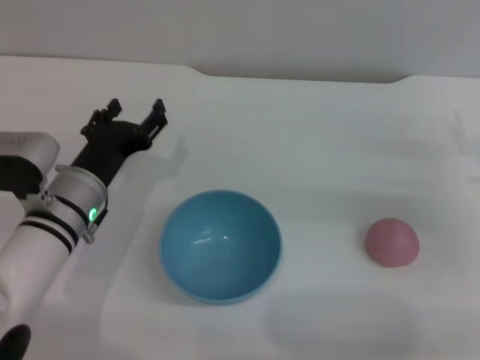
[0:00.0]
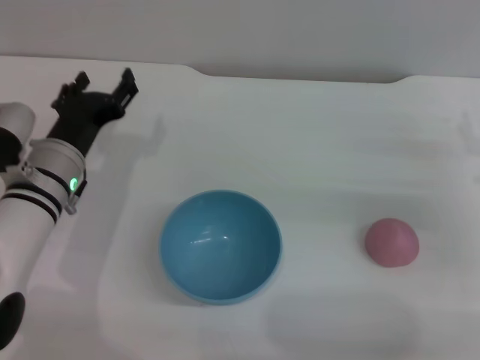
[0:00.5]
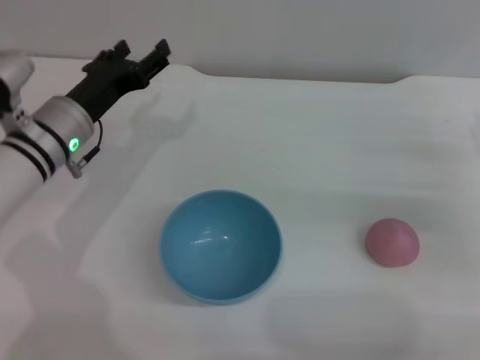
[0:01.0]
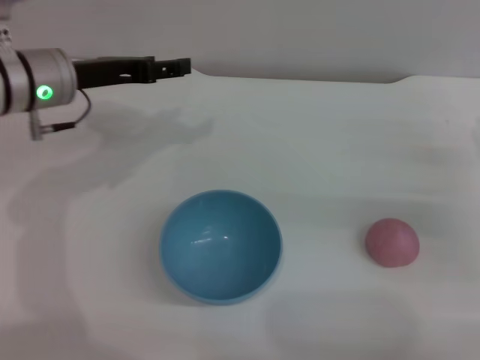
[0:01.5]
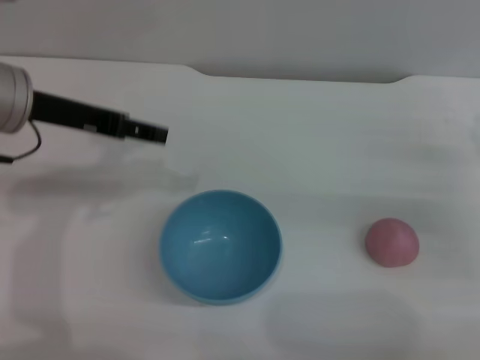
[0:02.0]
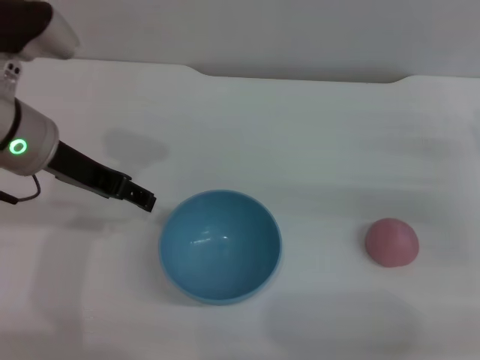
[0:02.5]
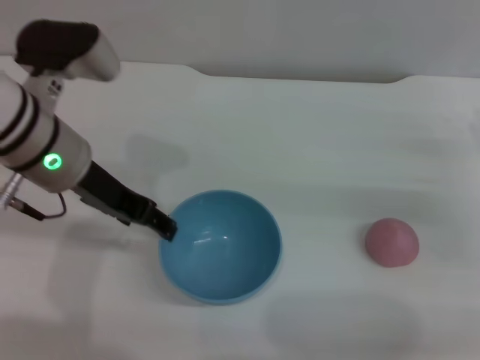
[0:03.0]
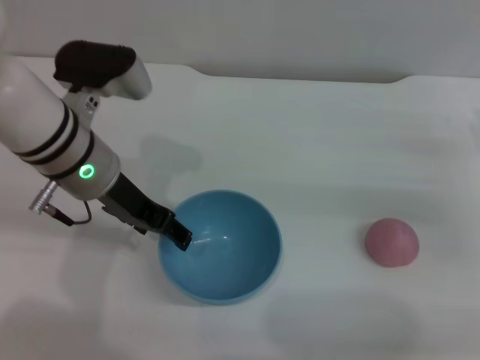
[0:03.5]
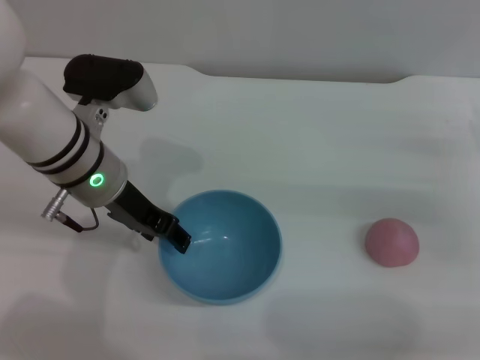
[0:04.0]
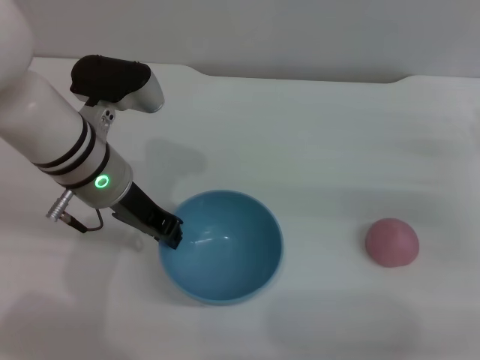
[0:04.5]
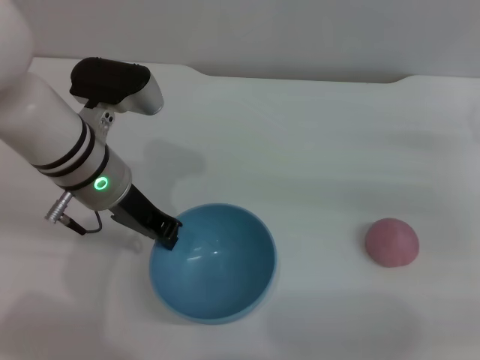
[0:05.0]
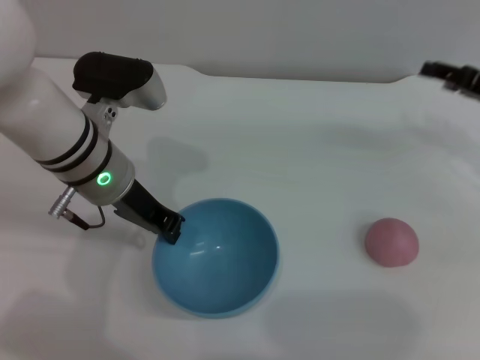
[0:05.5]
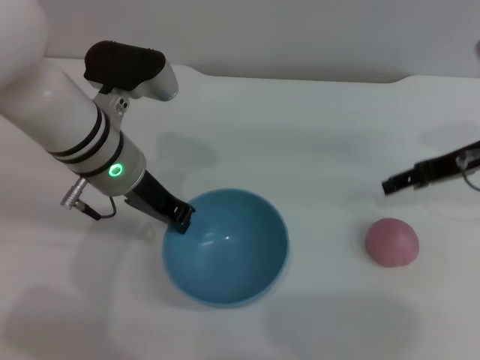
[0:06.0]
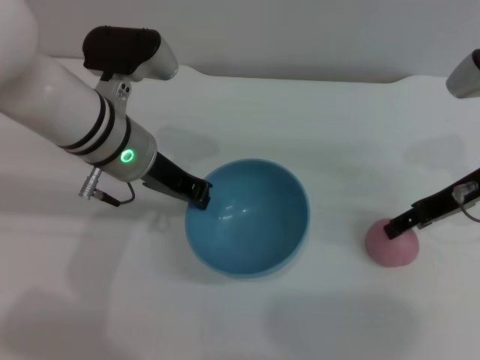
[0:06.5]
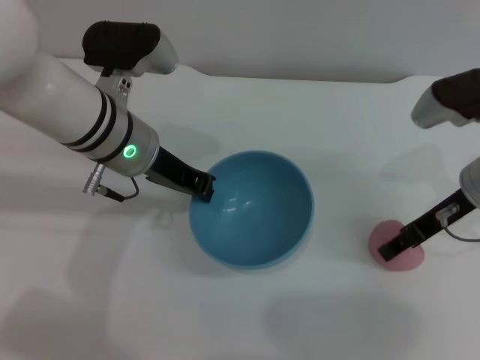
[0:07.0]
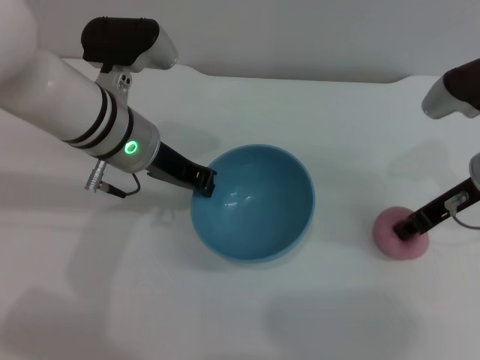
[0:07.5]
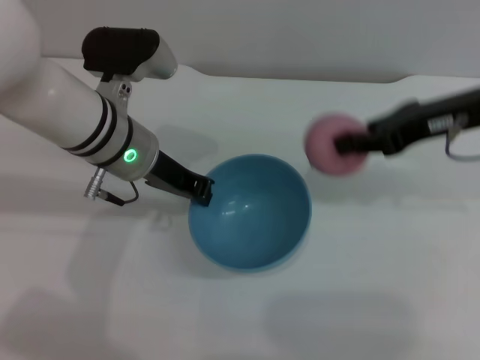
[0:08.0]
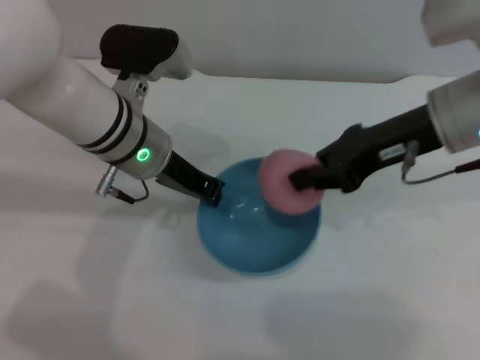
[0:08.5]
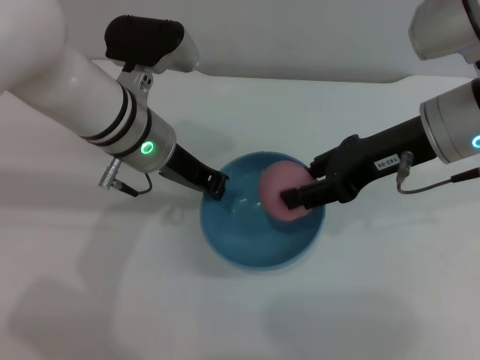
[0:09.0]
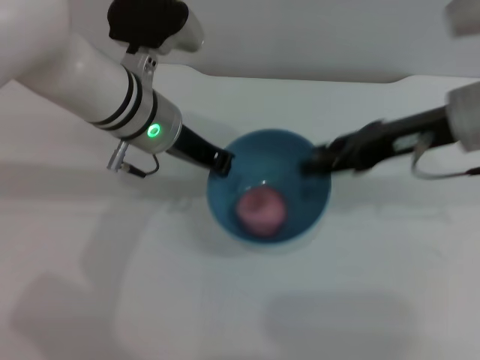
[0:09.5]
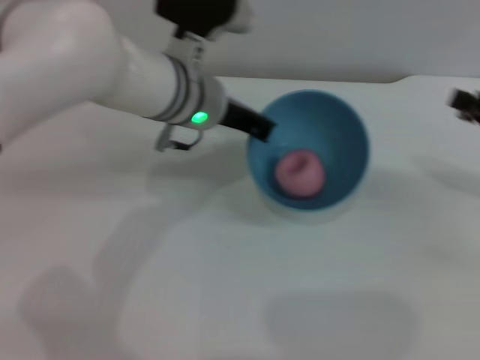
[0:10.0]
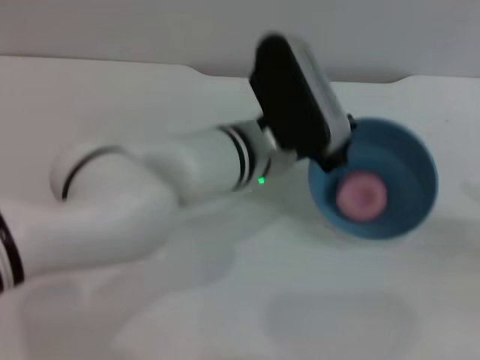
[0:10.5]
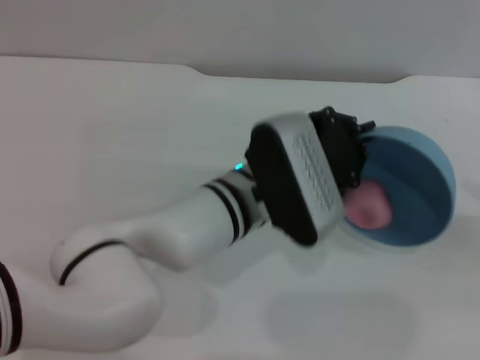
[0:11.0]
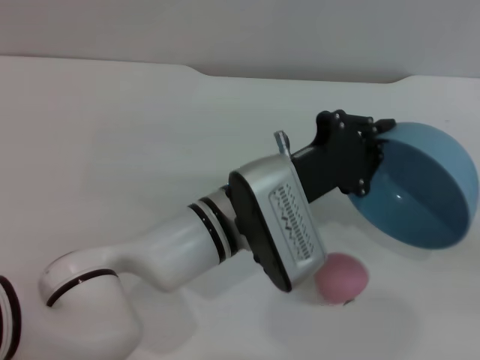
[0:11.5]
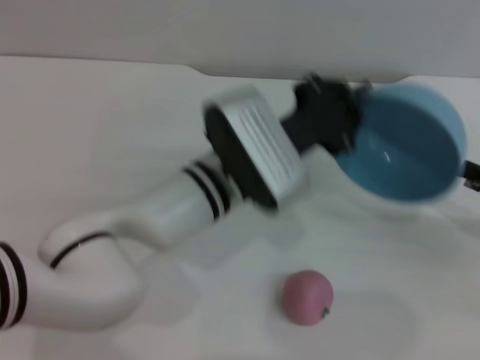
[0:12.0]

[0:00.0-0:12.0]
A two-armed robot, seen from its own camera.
Task of the whole recording: put the peach into the blue bowl and pour it out repeatedly.
Step, 0:00.0 to 0:06.0: Pick up the bowl with the left gripper.
Step, 0:06.5 to 0:07.5: Pick up the peach with the right gripper.
Step, 0:08.0 to 0:09.5: Place the peach into the bowl.
Step, 0:10.0 to 0:11.5: Pour the peach out of bowl.
0:00.0 to 0:02.0: The left gripper travels upward by about 15 cm.
0:02.0 to 0:04.0: The left gripper is displaced downward and to the right by approximately 10 cm.
0:04.0 to 0:06.0: The right gripper heads upward, to the left and forward, covering about 10 cm, while the left gripper closes up.
0:06.0 to 0:08.0: The right gripper goes approximately 5 cm upward, and closes.
0:08.0 to 0:10.0: The left gripper goes approximately 5 cm to the right. The right gripper heads to the right, downward and backward, covering roughly 15 cm, and opens up.
0:10.0 to 0:12.0: The right gripper moves downward and backward, about 10 cm, while the left gripper travels backward and downward by roughly 10 cm.

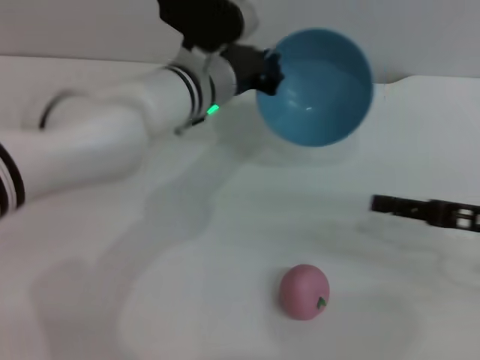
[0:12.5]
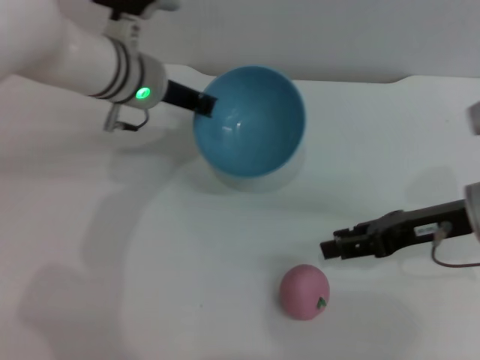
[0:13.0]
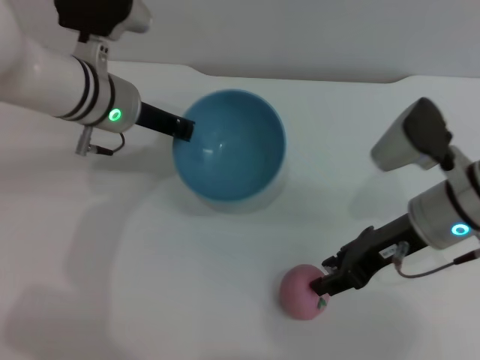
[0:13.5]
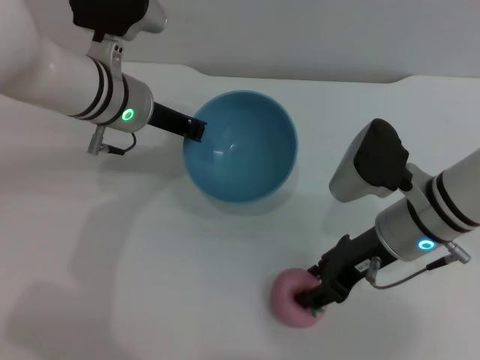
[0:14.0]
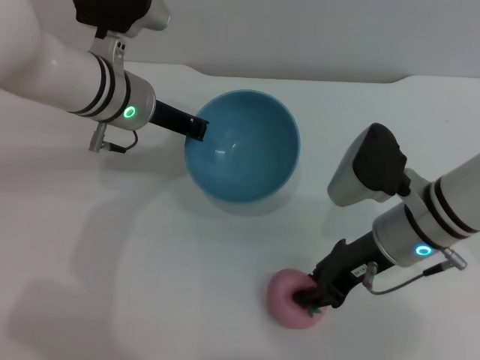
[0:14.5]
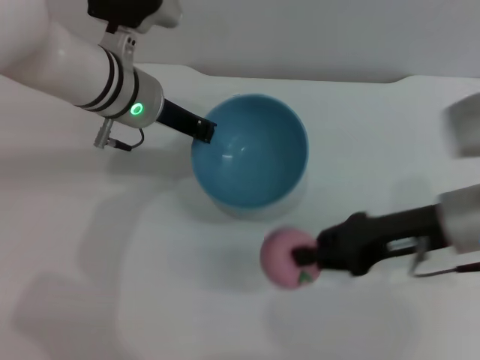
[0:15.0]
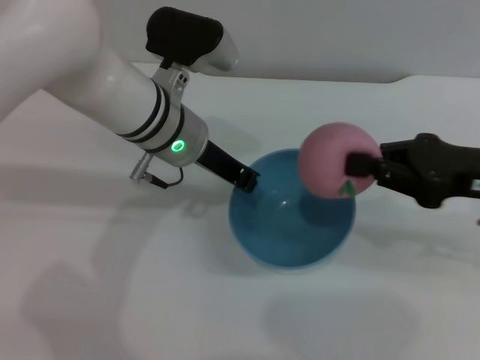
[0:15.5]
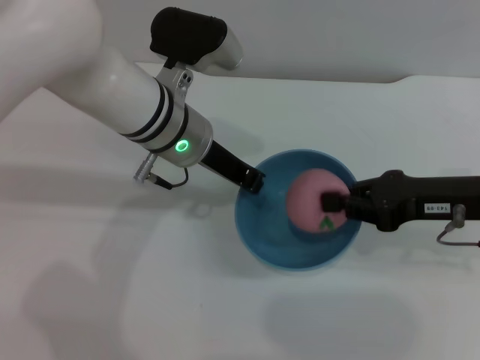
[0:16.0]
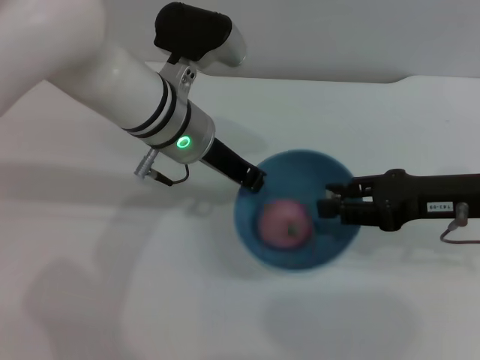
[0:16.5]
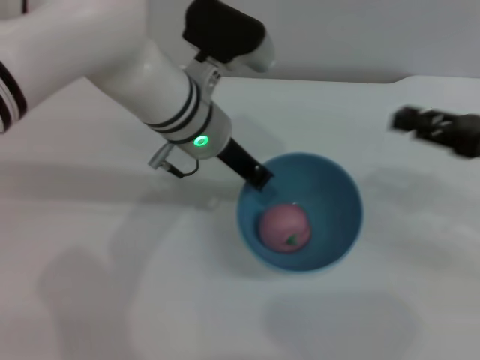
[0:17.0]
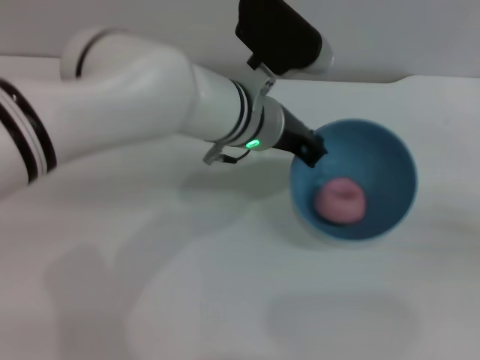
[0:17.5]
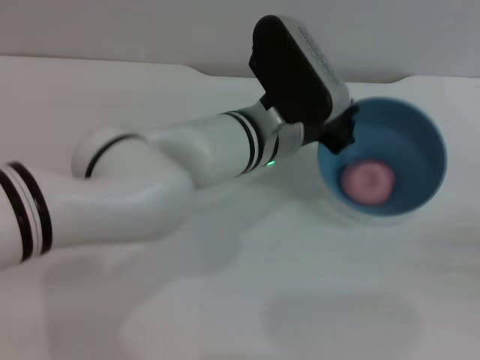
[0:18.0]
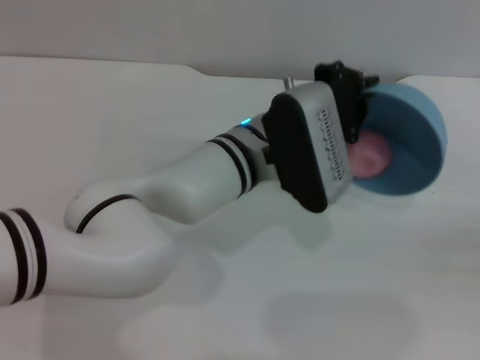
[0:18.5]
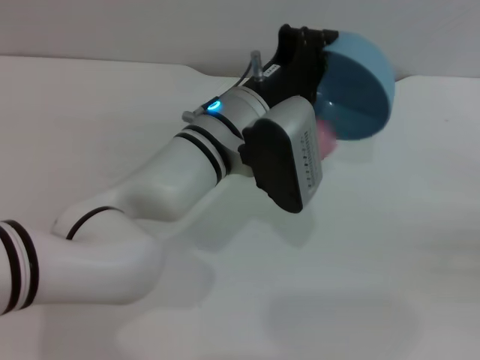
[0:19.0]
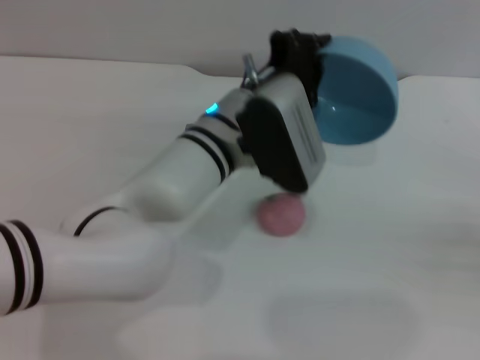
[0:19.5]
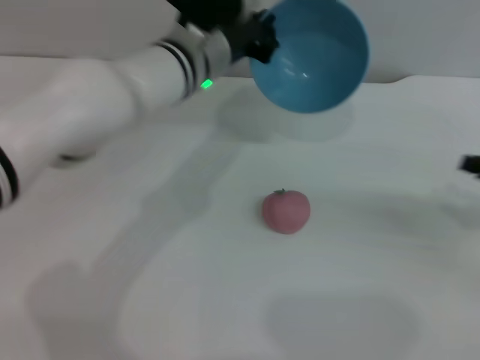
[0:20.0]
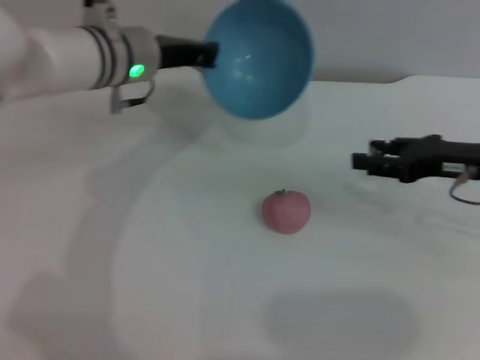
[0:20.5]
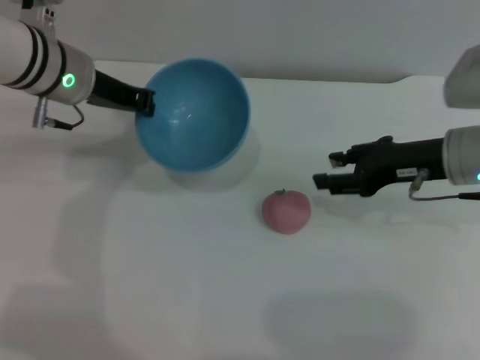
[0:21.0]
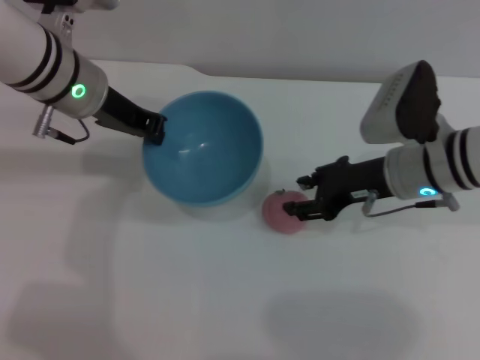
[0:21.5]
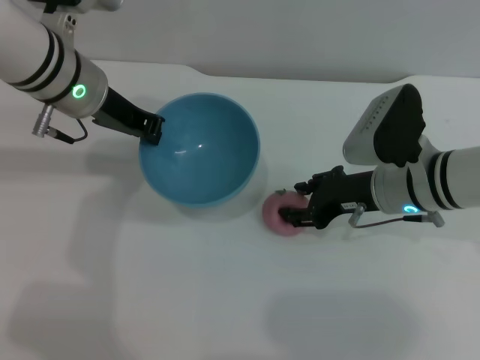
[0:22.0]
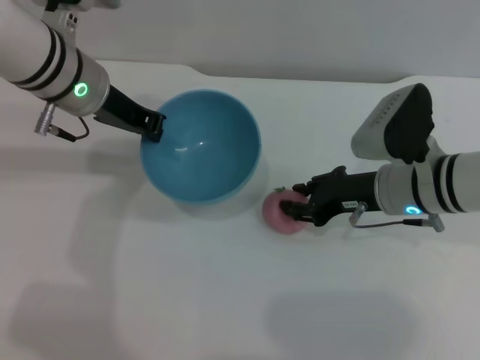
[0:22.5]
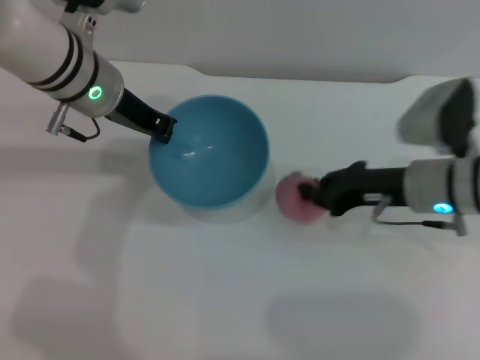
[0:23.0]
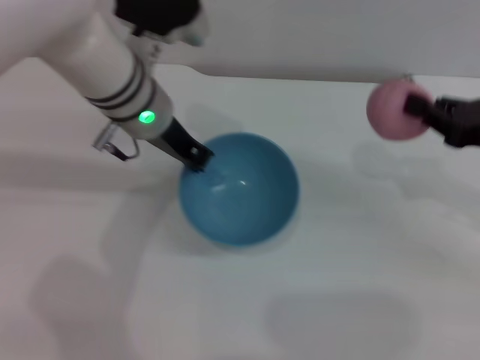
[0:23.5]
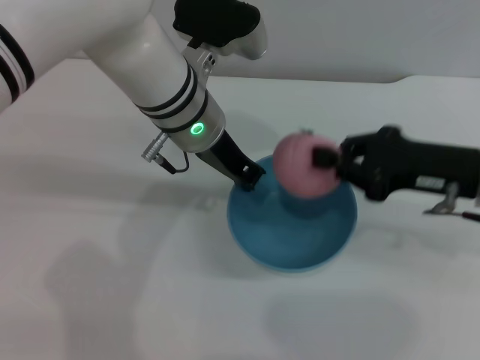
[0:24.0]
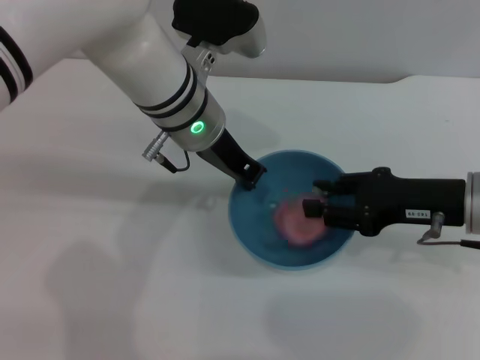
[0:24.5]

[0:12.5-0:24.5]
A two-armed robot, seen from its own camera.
Task of the whole recording: put the peach into the blue bowl and pour it out repeatedly.
Step, 0:12.5 to 0:15.0: Pick up the peach with the right gripper.
Step, 0:15.5 to 0:16.5: Place the peach into the bowl.
Step, 0:17.0 to 0:19.5: Pour the peach out of bowl.
Step, 0:20.0 to 0:23.0: Pick up the peach with the right gripper.
0:12.5 to 0:14.5: The right gripper shifts approximately 15 cm to the left. The left gripper shifts about 10 cm to the left.
0:14.5 to 0:16.5: The right gripper goes roughly 10 cm to the right, and closes and opens again, while the left gripper moves to the right, about 5 cm.
0:16.5 to 0:18.5: The left gripper travels to the right by roughly 10 cm. Meanwhile the right gripper goes about 20 cm to the right and backward.
0:18.5 to 0:20.5: Both grippers travel together to the left and forward, some 20 cm.
0:20.5 to 0:22.5: The right gripper travels to the left by approximately 10 cm. Meanwhile the left gripper shifts by about 5 cm.
0:22.5 to 0:24.5: The right gripper heads to the right, covering about 5 cm, and closes, then opens again, while the left gripper shifts approximately 10 cm to the right.

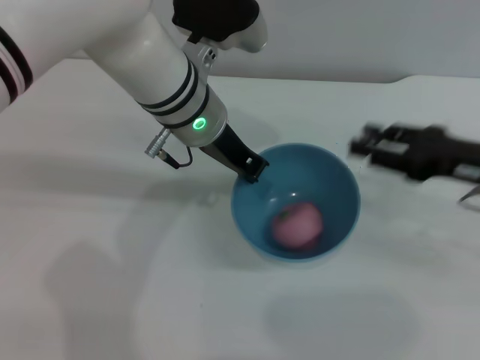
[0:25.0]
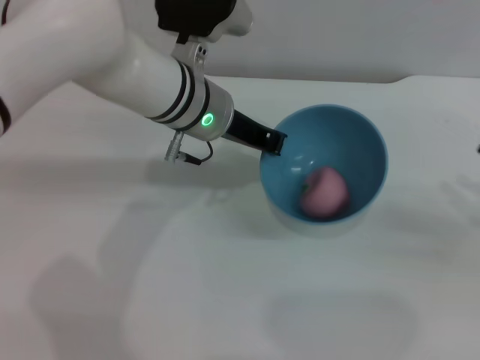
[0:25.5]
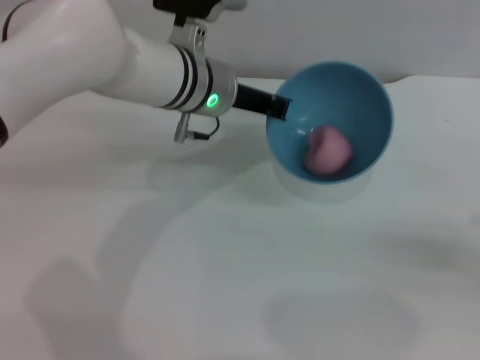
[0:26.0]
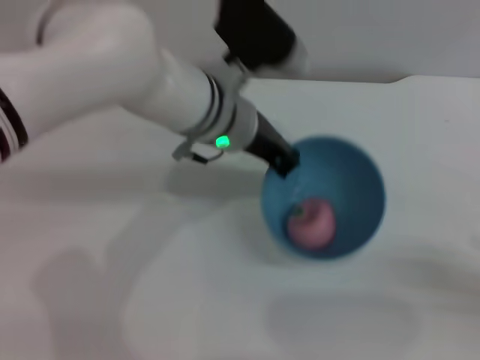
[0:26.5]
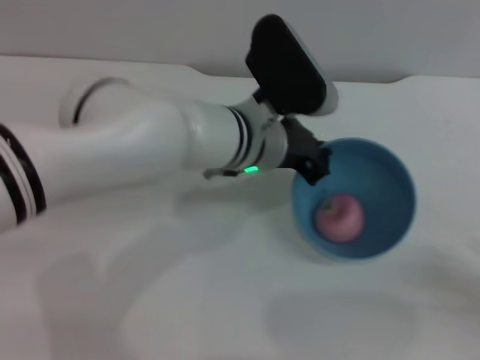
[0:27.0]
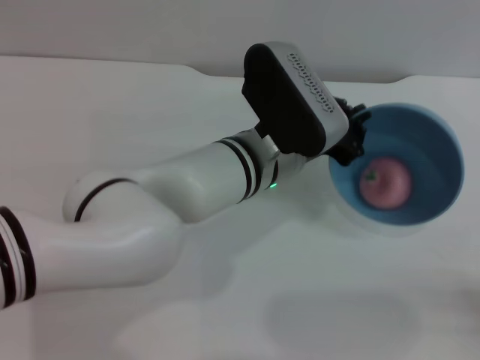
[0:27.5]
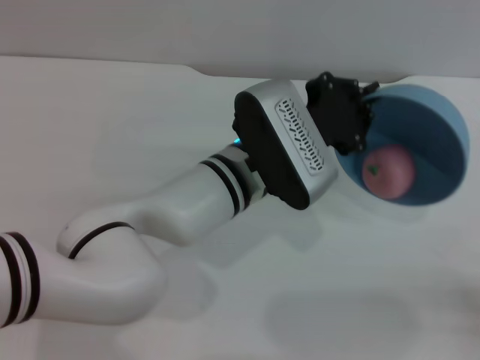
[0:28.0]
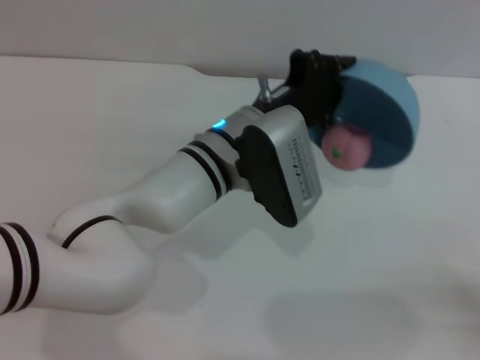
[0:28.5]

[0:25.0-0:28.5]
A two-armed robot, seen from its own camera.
Task of the whole recording: put the peach into the blue bowl and pour it out repeatedly.
0:25.0 to 0:27.0: The right gripper travels backward, to the right and downward by some 20 cm. Meanwhile the left gripper ends up about 5 cm from where it was.
